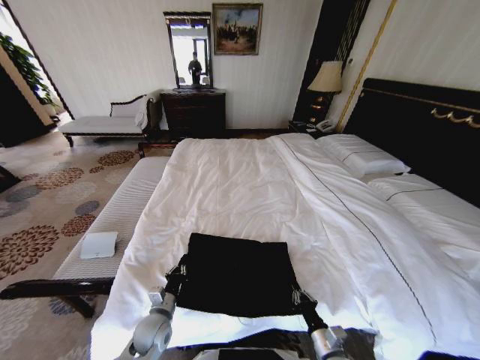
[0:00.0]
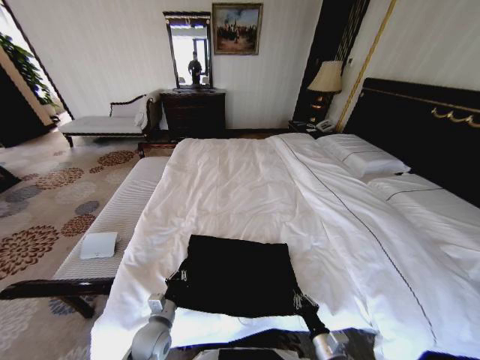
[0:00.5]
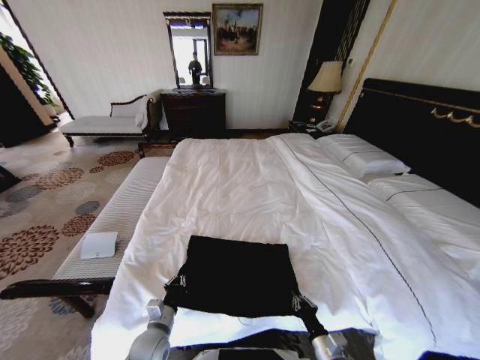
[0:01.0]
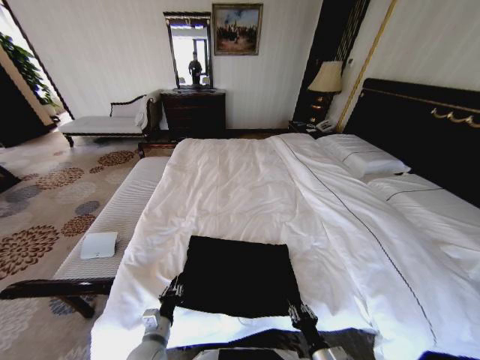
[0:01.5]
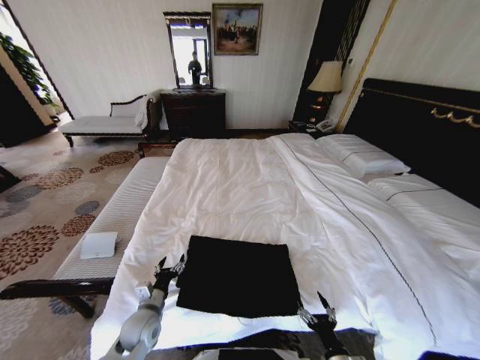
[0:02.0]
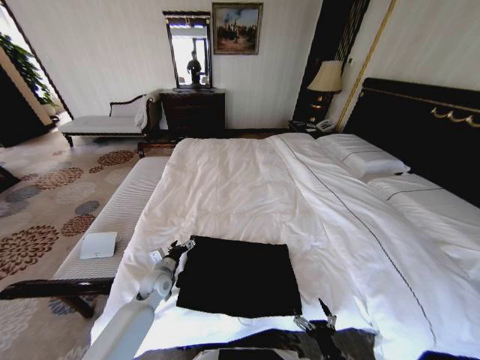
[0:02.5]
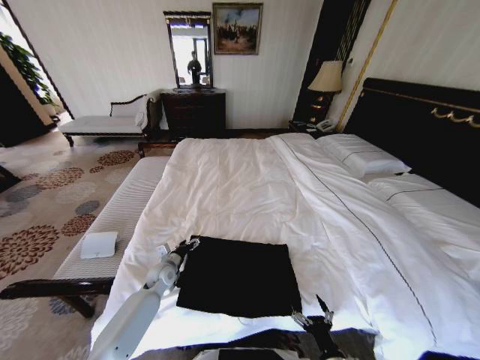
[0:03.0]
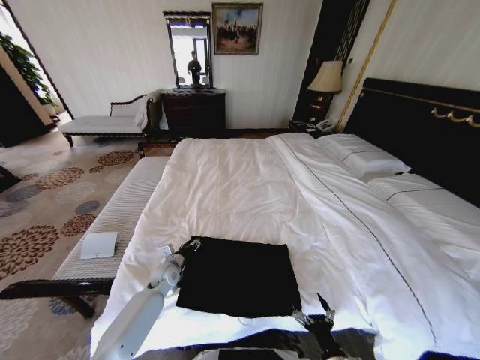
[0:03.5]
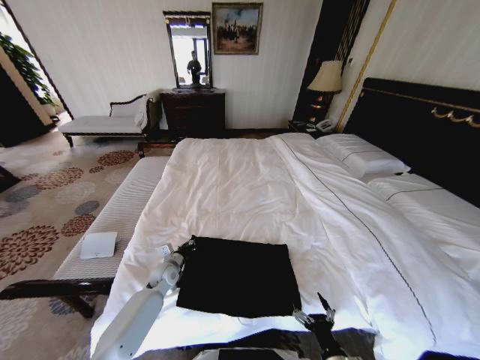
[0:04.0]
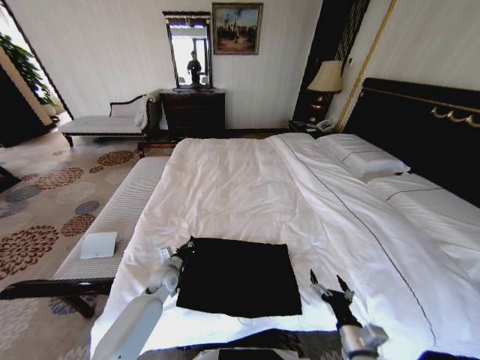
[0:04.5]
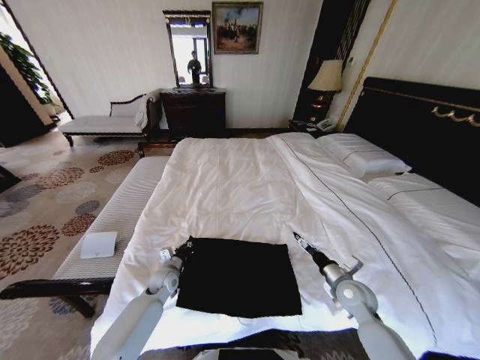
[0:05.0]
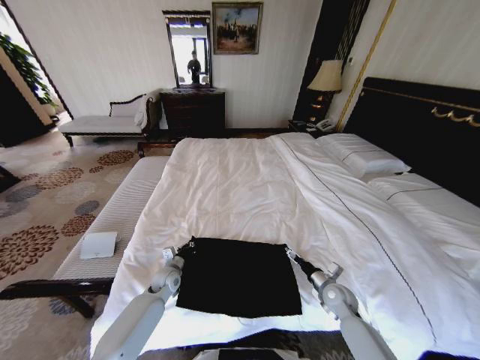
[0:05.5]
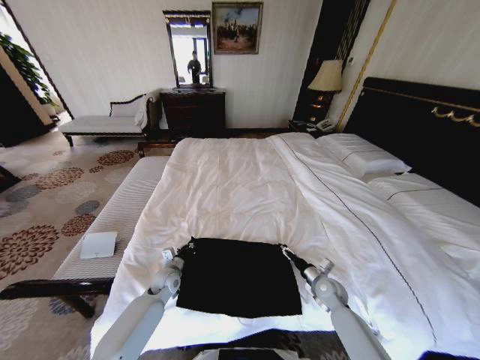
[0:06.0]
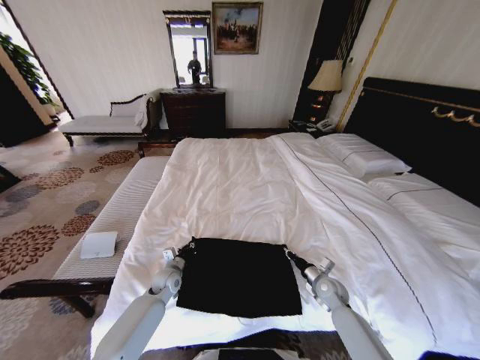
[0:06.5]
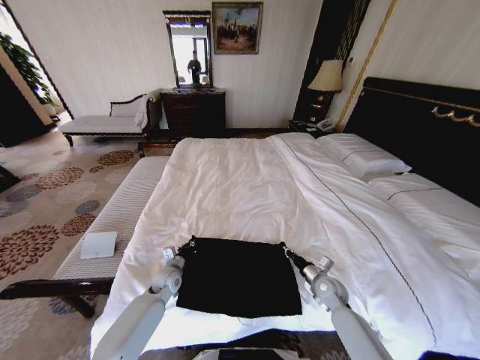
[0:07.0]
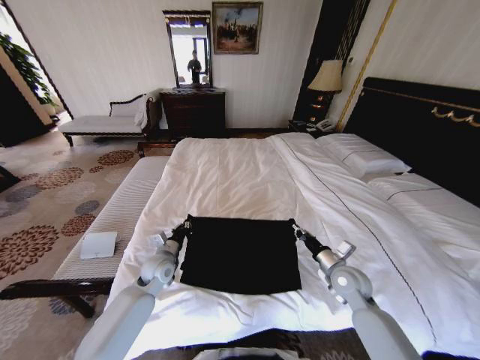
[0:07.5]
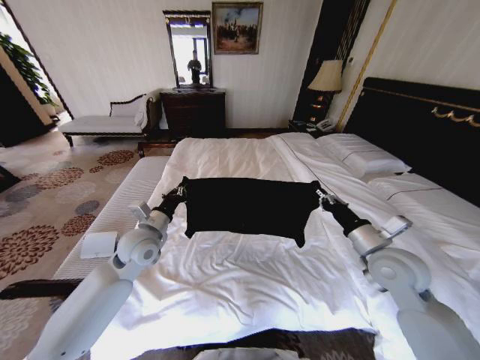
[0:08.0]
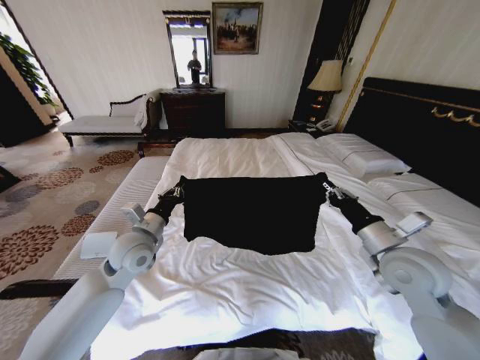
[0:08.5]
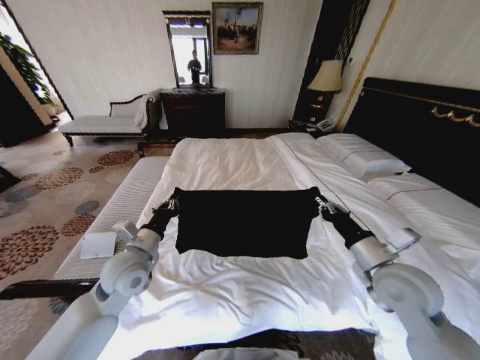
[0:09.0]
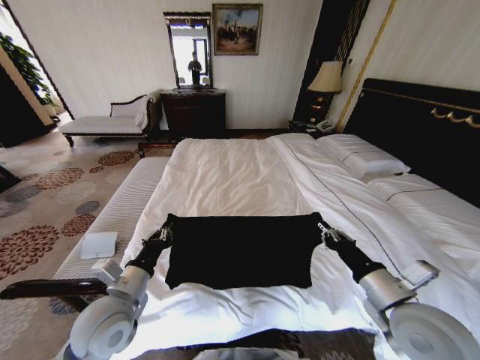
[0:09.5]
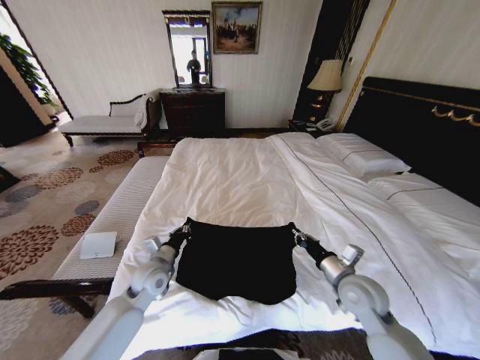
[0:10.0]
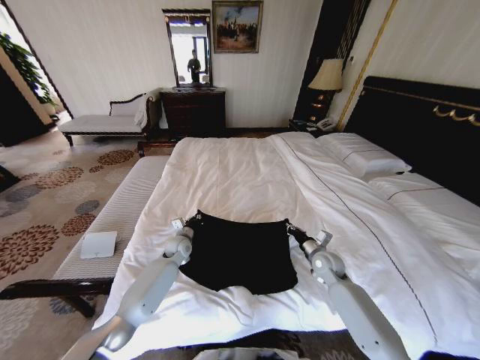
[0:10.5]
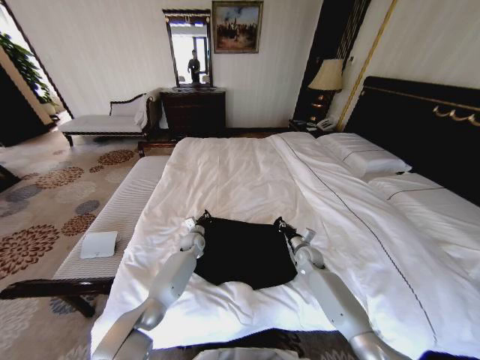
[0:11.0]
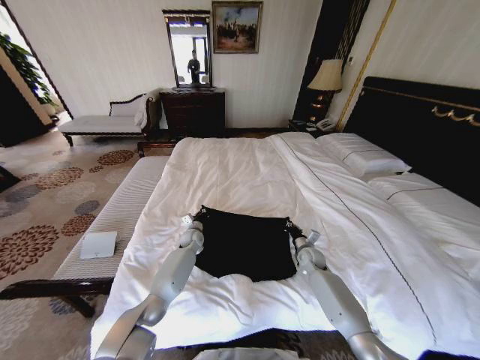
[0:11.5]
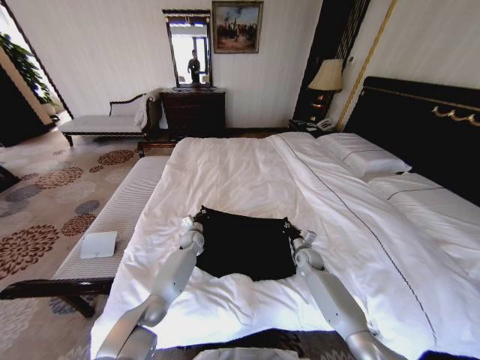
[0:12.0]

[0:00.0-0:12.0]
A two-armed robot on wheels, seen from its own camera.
Task of the whole recording: Fold the clothes on the bed.
0:00.0 to 0:02.0: The left gripper opens its fingers, while the right gripper goes roughly 5 cm backward, and opens its fingers.
0:02.0 to 0:04.0: The left gripper travels forward by about 15 cm, and closes up.
0:04.0 to 0:06.0: The right gripper is displaced forward by some 25 cm.
0:06.0 to 0:08.0: Both grippers travel together upward, roughly 25 cm. The right gripper closes.
0:08.0 to 0:10.0: The grippers both shift downward by some 10 cm. The left gripper travels backward and back again, roughly 15 cm each way.
0:10.0 to 0:12.0: Both grippers travel together forward and downward, roughly 25 cm.

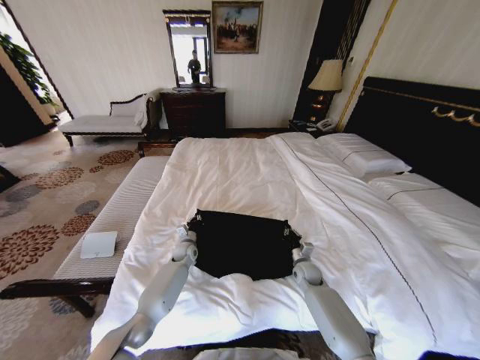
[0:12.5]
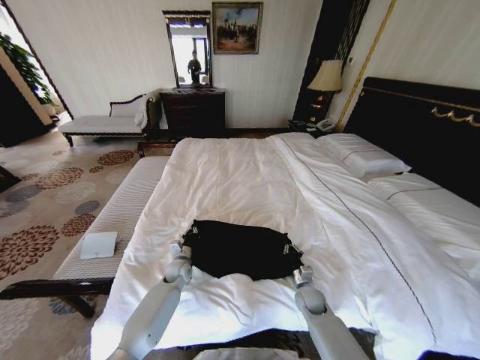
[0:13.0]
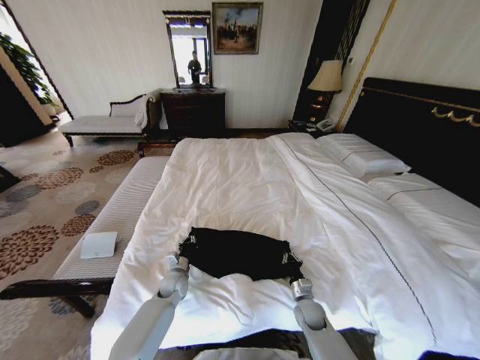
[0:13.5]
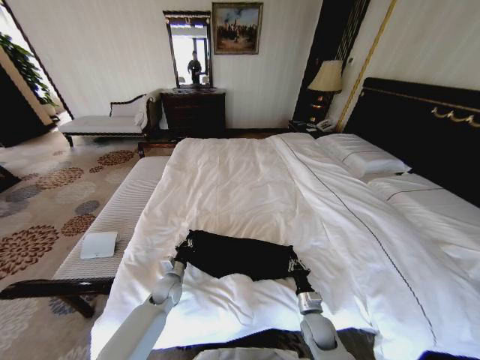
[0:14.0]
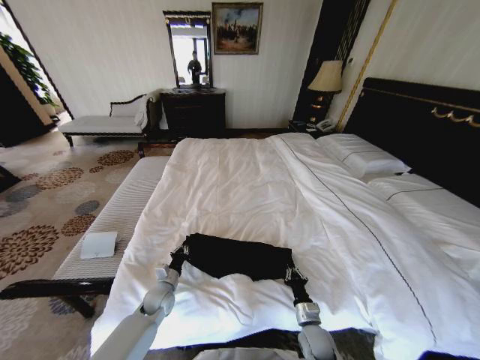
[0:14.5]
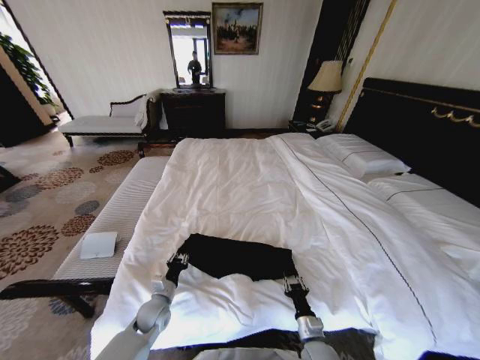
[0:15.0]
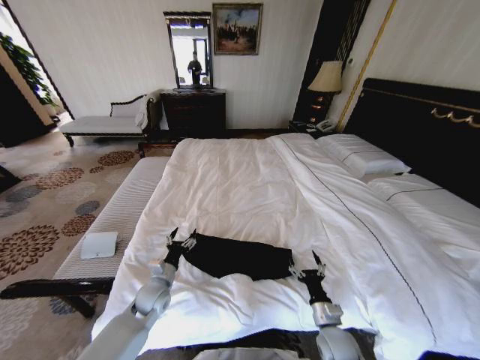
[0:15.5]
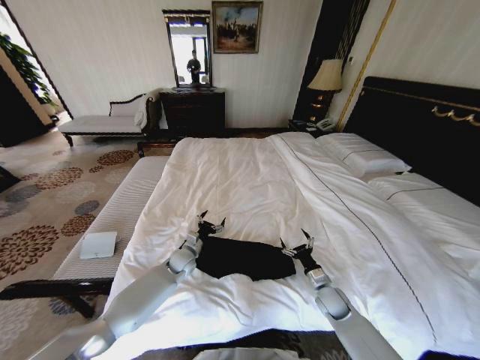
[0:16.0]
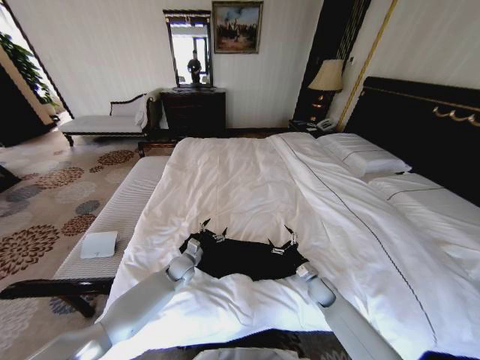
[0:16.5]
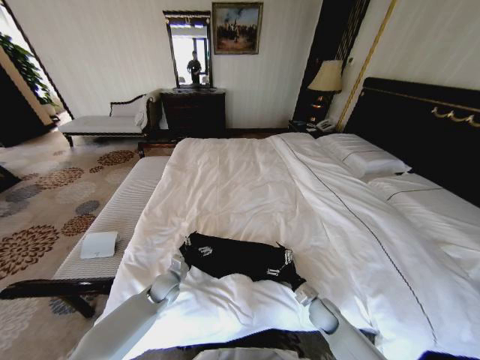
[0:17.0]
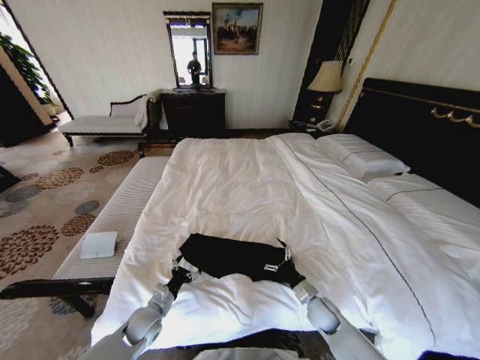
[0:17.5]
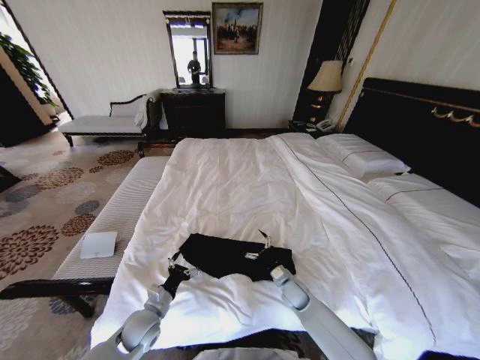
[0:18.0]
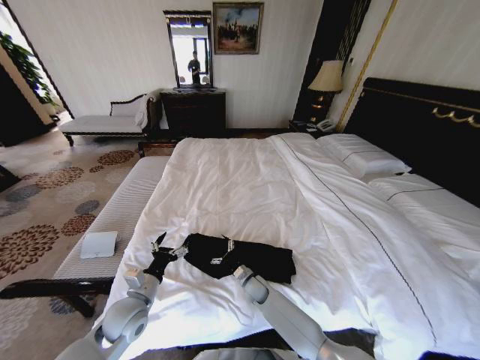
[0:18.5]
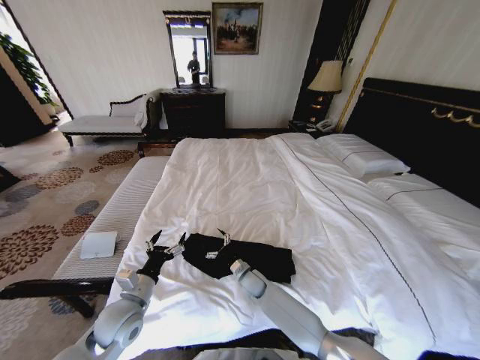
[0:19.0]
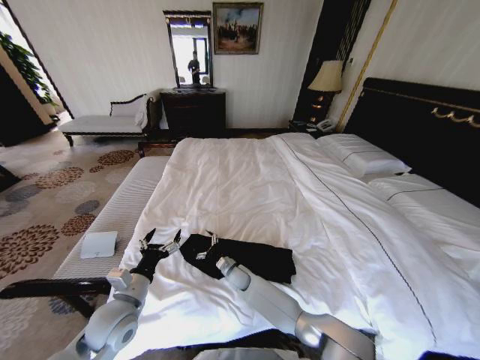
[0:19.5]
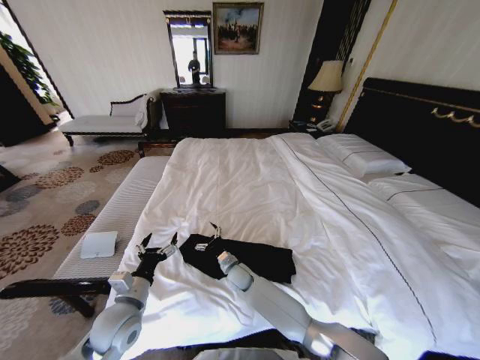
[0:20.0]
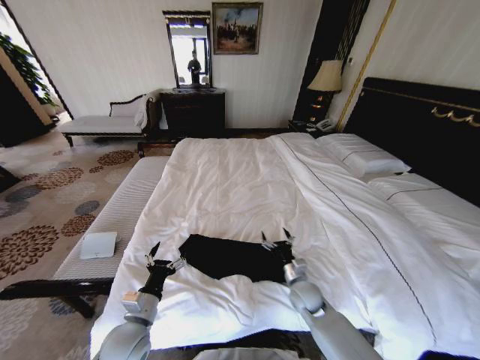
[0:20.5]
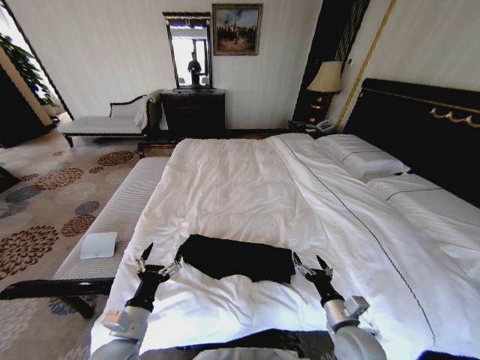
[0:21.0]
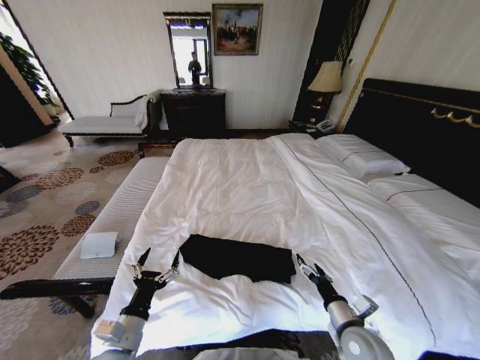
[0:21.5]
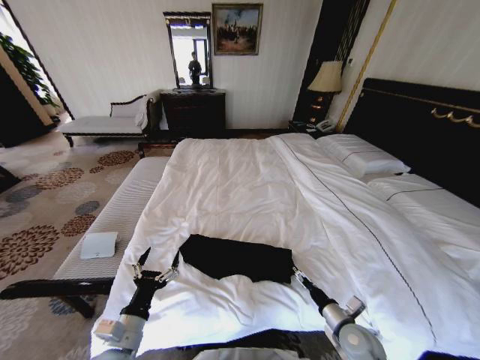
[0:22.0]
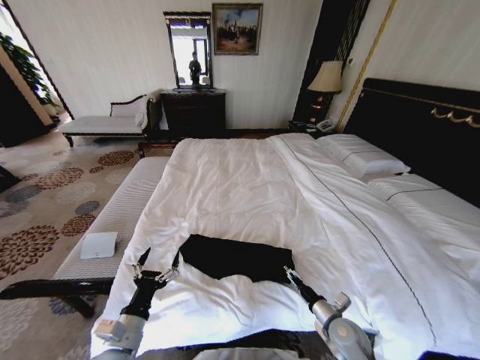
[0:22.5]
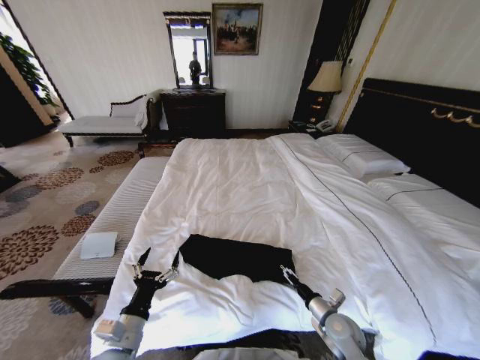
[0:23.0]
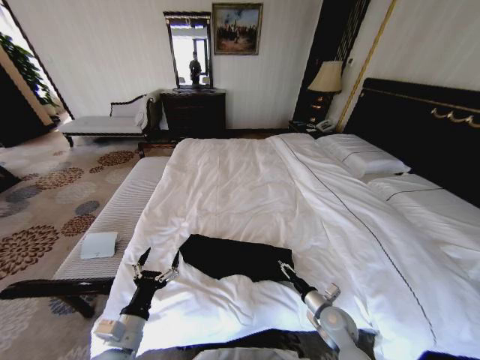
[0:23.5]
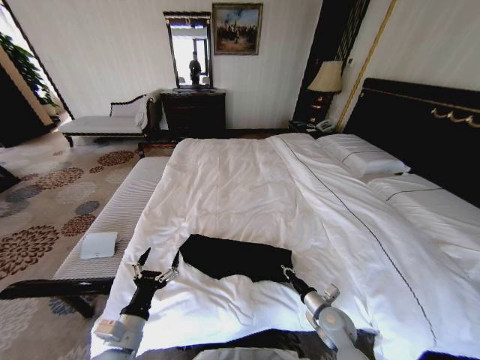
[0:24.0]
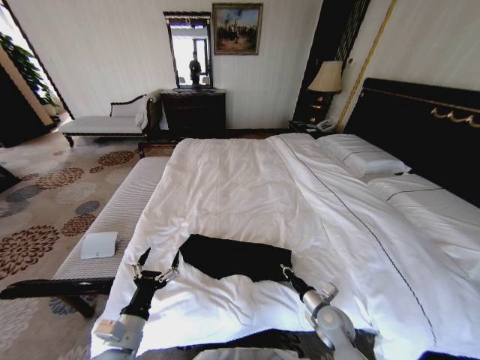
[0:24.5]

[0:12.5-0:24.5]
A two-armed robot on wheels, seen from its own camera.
Task of the whole recording: Fold the clothes on the bed.
0:12.5 to 0:14.5: Both grippers travel together backward, some 20 cm.
0:14.5 to 0:16.5: Both grippers move forward and to the right, roughly 15 cm. The left gripper opens its fingers, while the right gripper opens up.
0:16.5 to 0:18.5: The right gripper is displaced to the left by about 25 cm. The left gripper goes about 20 cm backward, upward and to the left.
0:18.5 to 0:20.5: The left gripper shifts approximately 5 cm backward; the right gripper heads to the right, upward and backward, covering some 20 cm.
0:20.5 to 0:22.5: The right gripper goes some 15 cm backward and to the right; the left gripper moves backward, roughly 5 cm.
0:22.5 to 0:24.5: The right gripper closes its fingers.

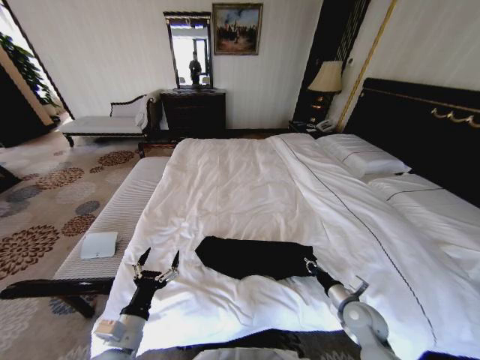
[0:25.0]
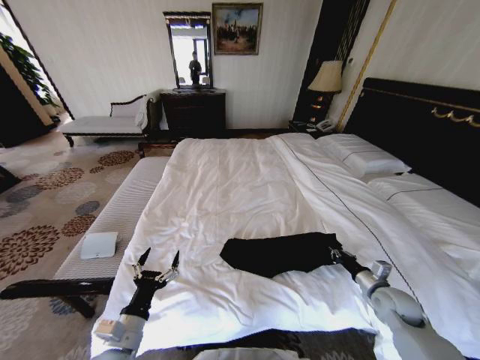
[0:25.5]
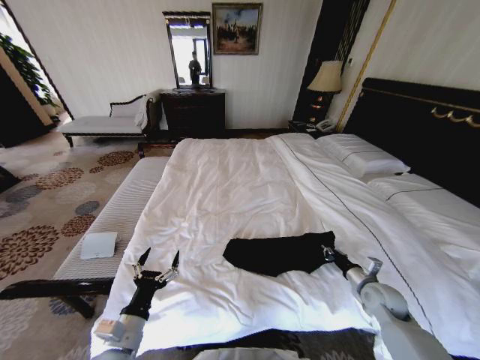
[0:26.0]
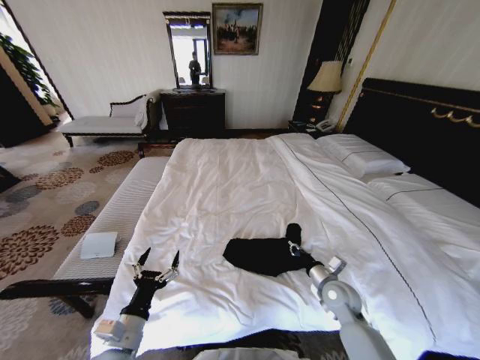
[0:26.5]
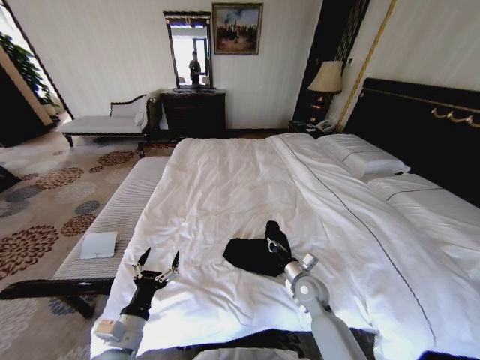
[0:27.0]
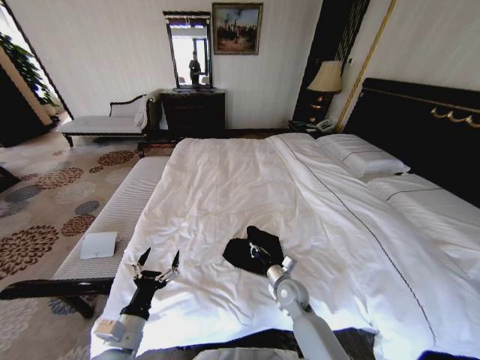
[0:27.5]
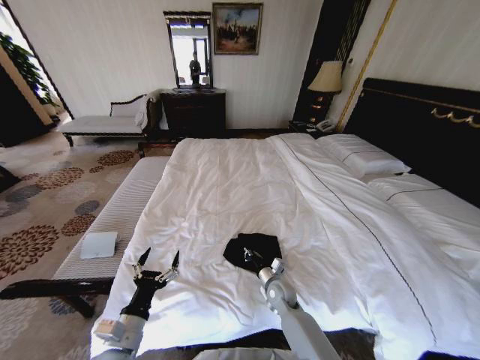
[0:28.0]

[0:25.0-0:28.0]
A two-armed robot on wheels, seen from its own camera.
Task of the whole recording: Fold the clothes on the bed.
0:25.0 to 0:26.5: The right gripper goes some 5 cm forward, and moves roughly 10 cm to the right and comes back.
0:26.5 to 0:28.0: The right gripper shifts roughly 15 cm to the left and downward.
